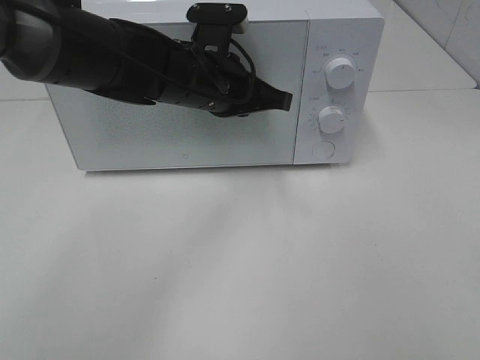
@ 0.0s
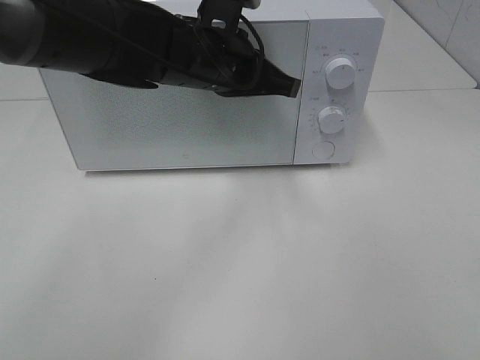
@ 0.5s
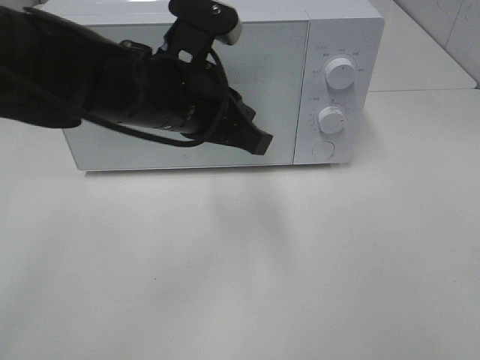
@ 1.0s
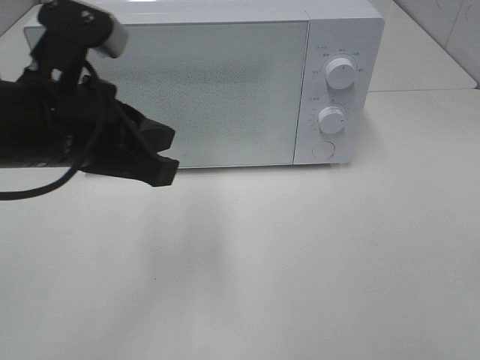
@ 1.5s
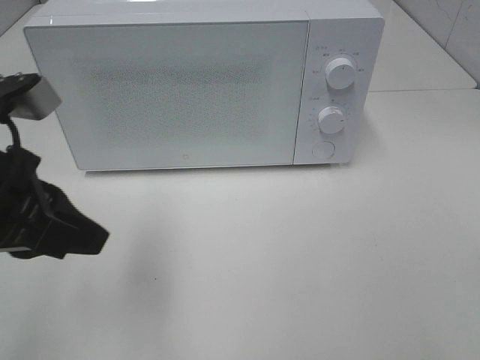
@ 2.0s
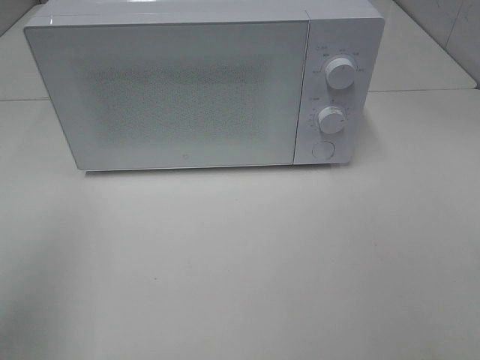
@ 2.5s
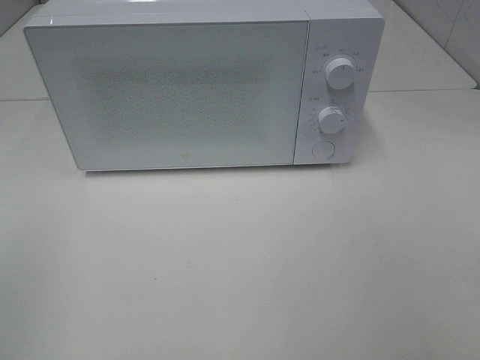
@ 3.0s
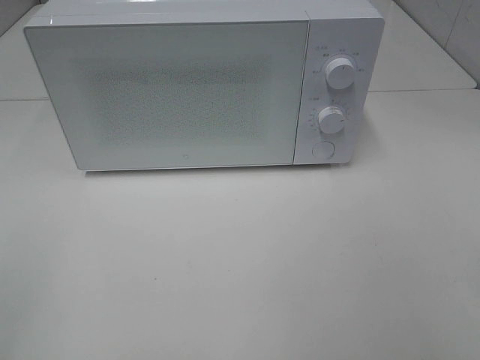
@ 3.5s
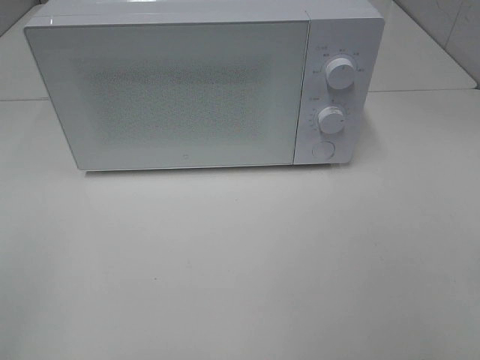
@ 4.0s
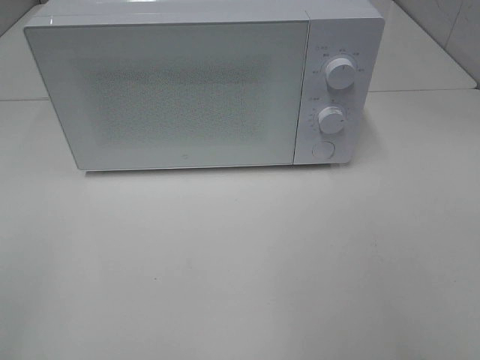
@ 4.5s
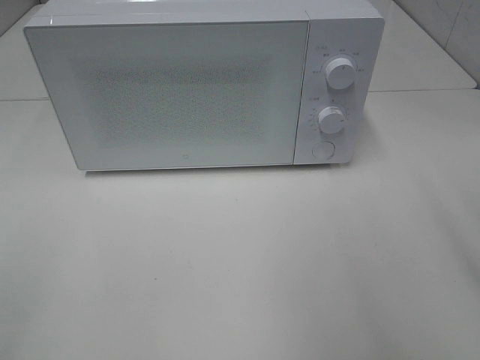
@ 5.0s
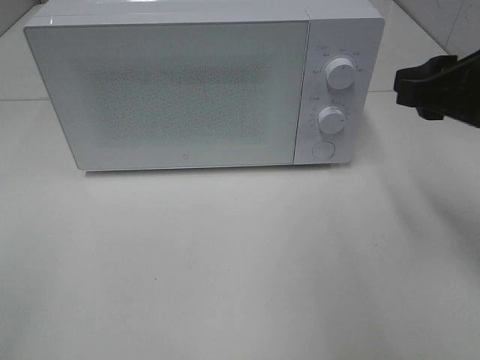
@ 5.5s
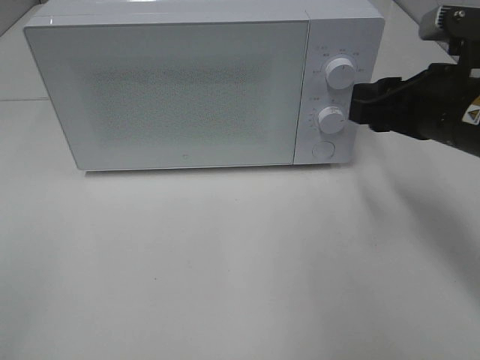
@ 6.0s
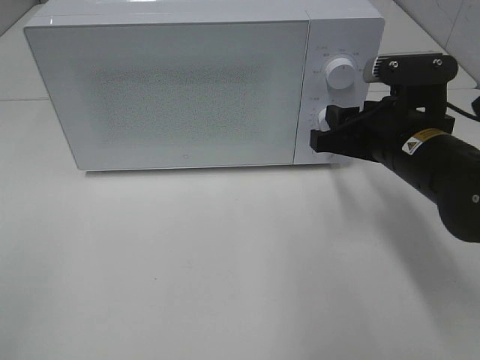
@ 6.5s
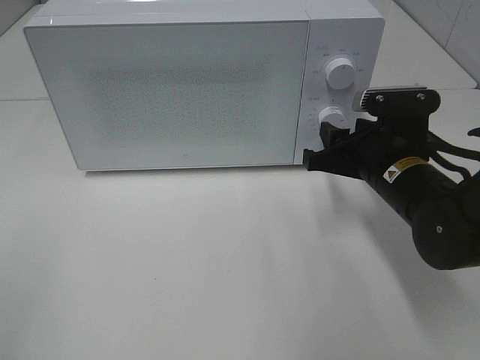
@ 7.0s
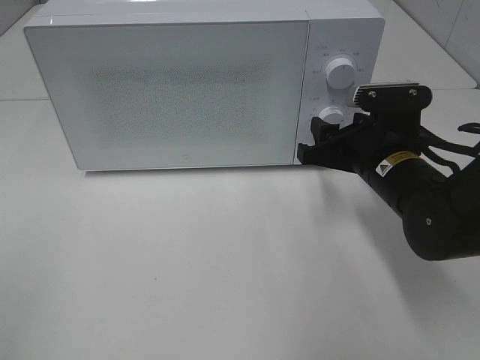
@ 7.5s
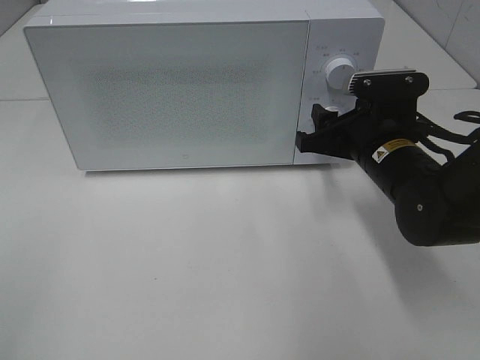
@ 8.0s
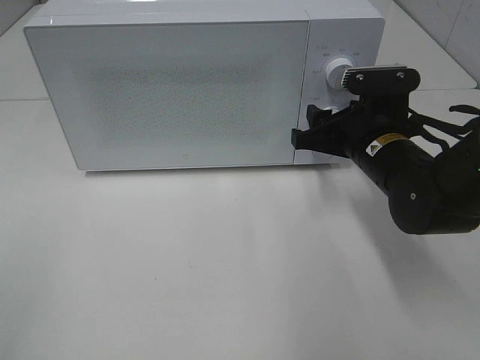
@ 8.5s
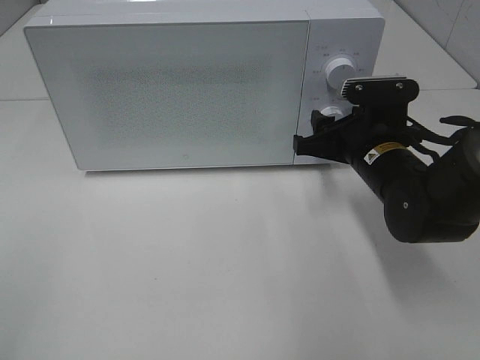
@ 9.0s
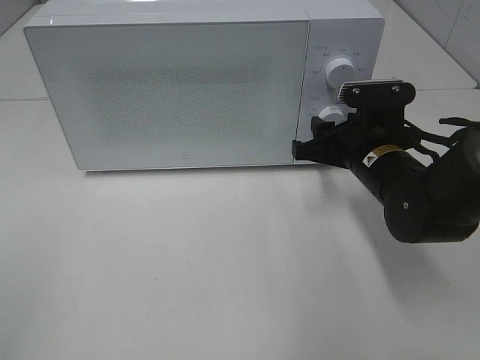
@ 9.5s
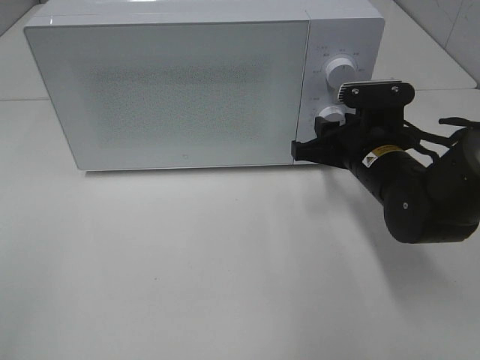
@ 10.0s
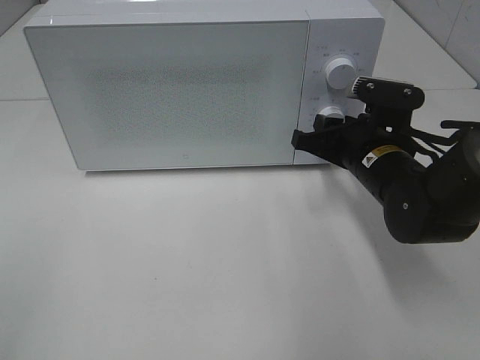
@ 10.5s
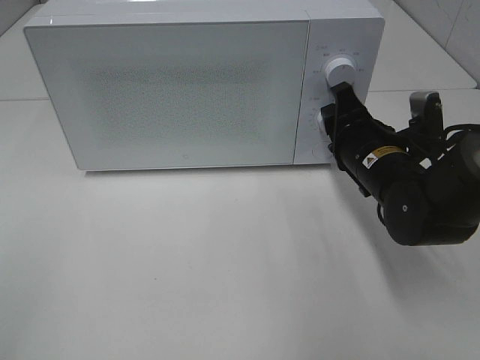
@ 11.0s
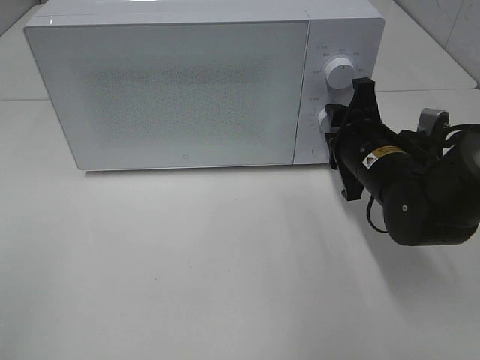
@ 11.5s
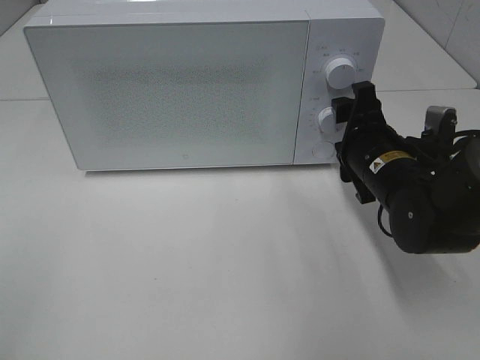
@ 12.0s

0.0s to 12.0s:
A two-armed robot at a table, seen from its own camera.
Task of the whole recording: Heat the burger.
Step, 0.5s to 11.5s: Right hand: twist timer button.
0.0s to 2.0s: The left gripper is displaced backward and to the left by approximately 25 cm.
2.0s to 4.0s: The left gripper heads backward and to the left, covering approximately 25 cm.
4.0s to 6.0s: The right gripper goes some 25 cm forward.
6.0s to 8.0s: The right gripper travels downward by about 10 cm.
8.0s to 10.0s: There are only small adjustments of the grippers.

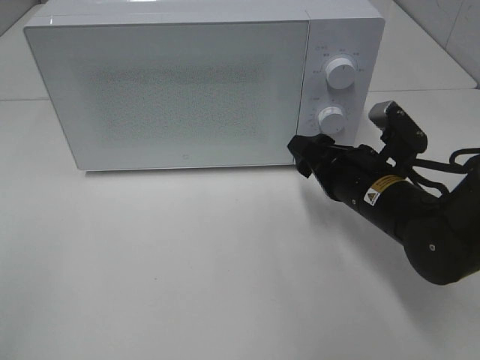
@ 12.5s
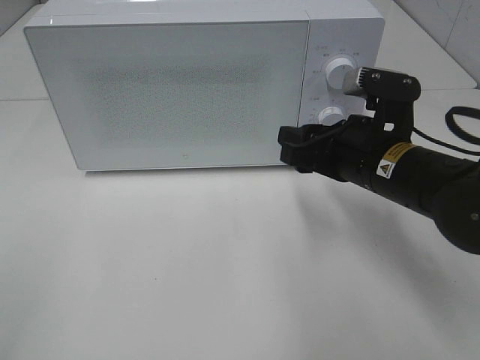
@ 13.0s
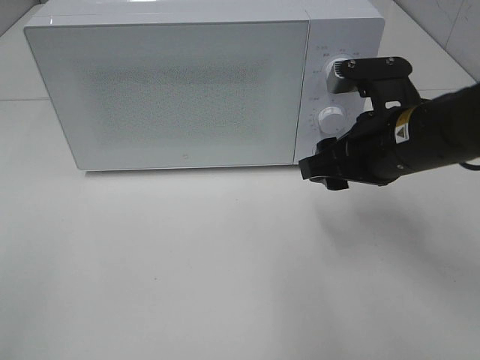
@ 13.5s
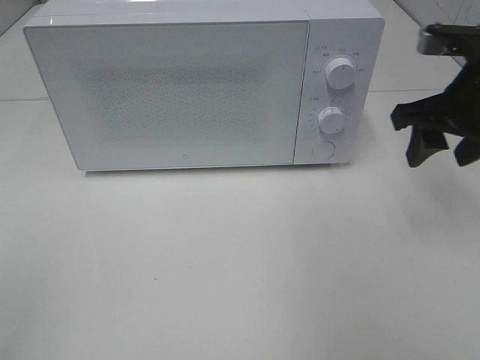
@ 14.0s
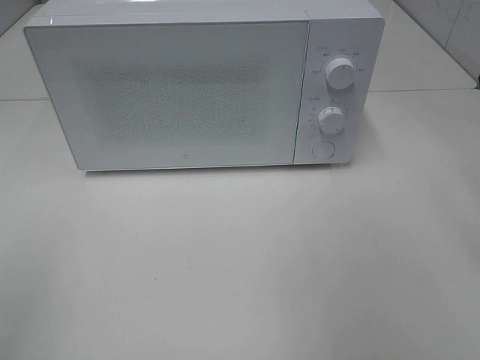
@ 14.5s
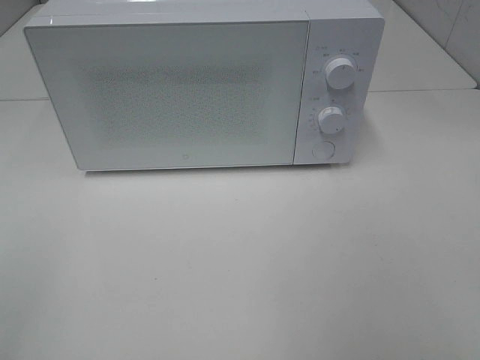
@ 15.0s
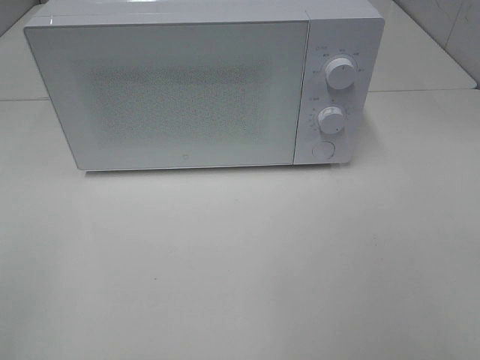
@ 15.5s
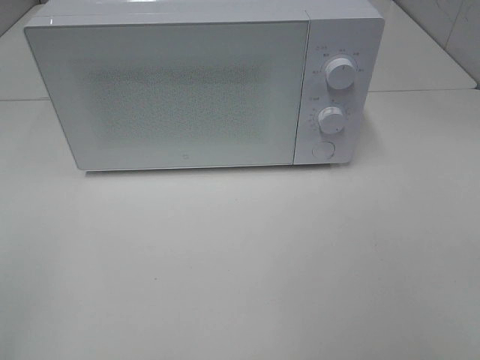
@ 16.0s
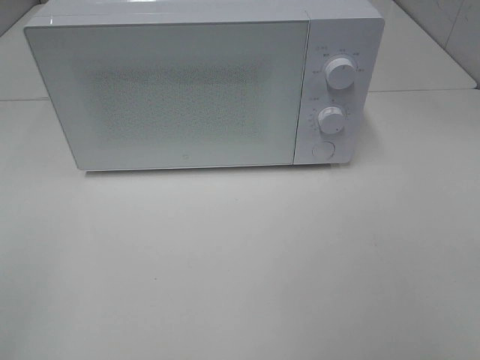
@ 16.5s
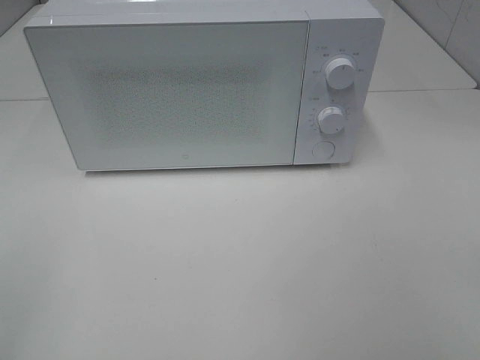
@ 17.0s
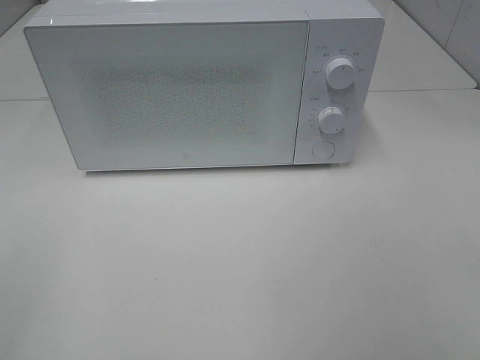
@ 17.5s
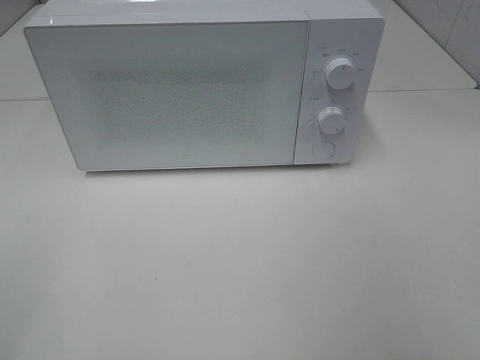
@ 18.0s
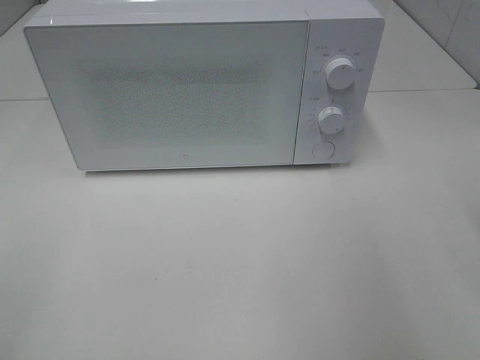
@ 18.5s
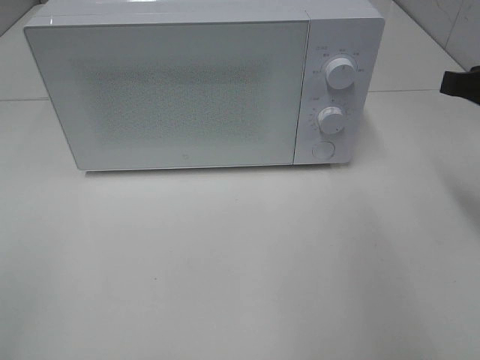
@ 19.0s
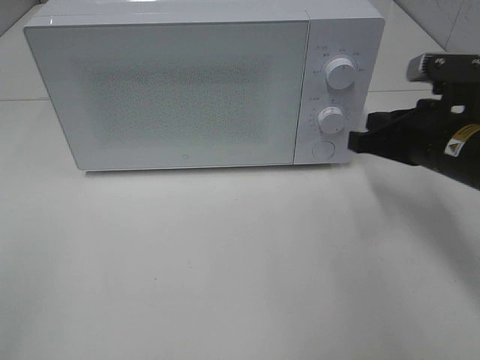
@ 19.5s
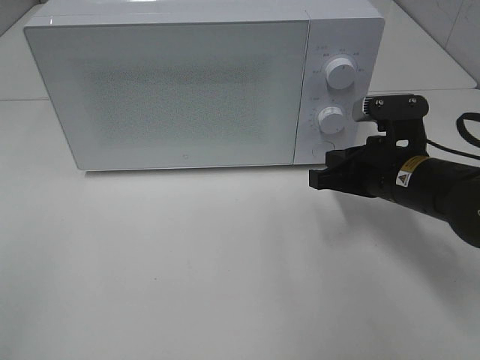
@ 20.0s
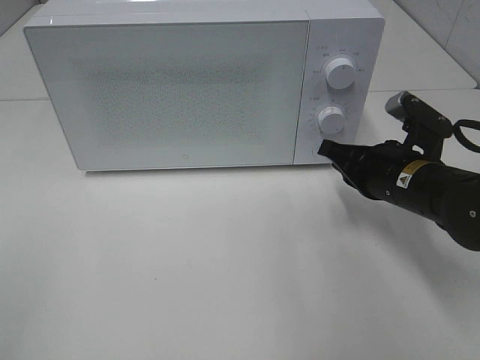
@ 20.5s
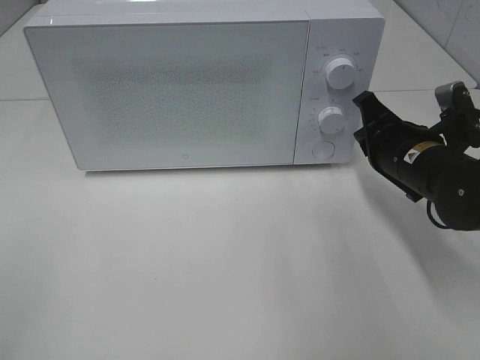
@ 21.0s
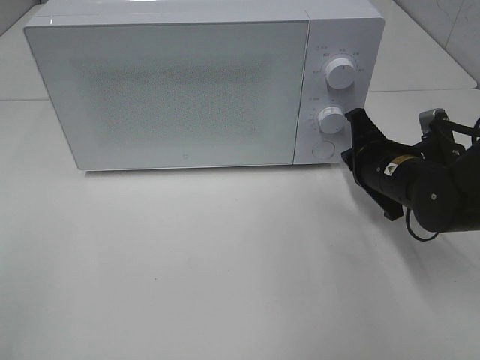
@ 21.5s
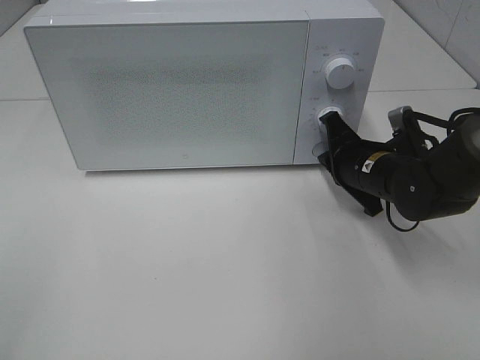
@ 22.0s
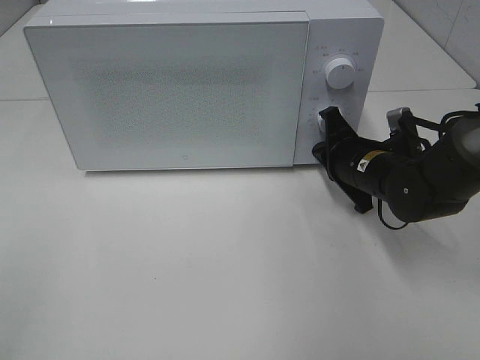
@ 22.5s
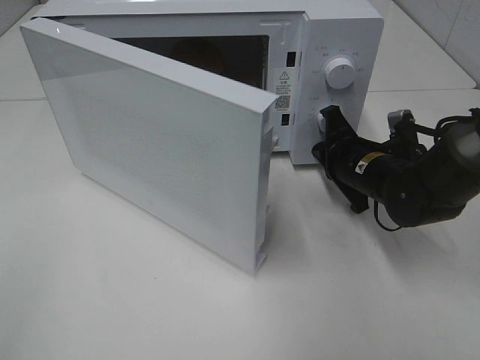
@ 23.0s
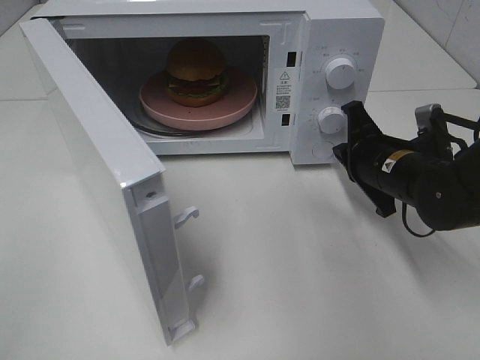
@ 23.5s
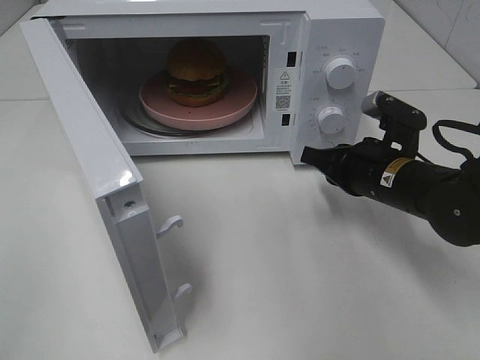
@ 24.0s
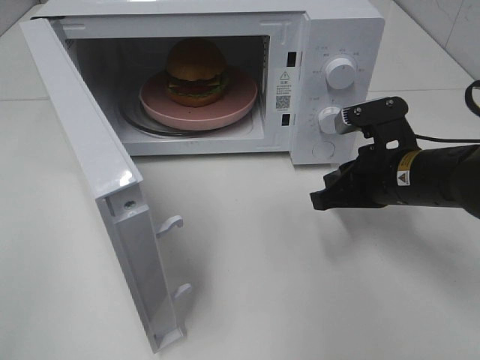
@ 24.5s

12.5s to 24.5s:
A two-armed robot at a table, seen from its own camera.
Task of the whole recording: Heat the burger.
Step, 12.5s to 23.0s: Right hand: press the switch.
12.5s to 14.5s: The right gripper heads upward and to the right, covering some 25 cm.
18.5s to 20.5s: The right gripper moves downward, forward and to the left, approximately 20 cm.
20.5s to 22.5s: The right gripper moves forward, approximately 5 cm.
22.5s to 24.5s: The right gripper heads backward, covering approximately 5 cm.

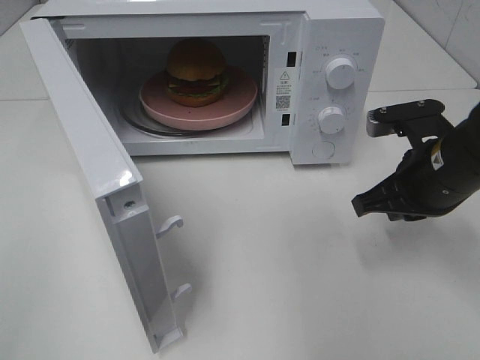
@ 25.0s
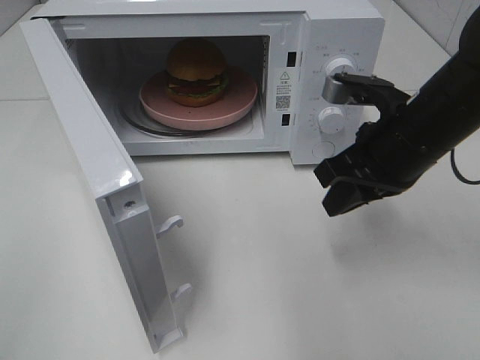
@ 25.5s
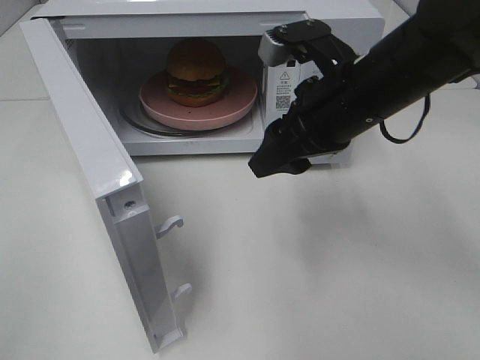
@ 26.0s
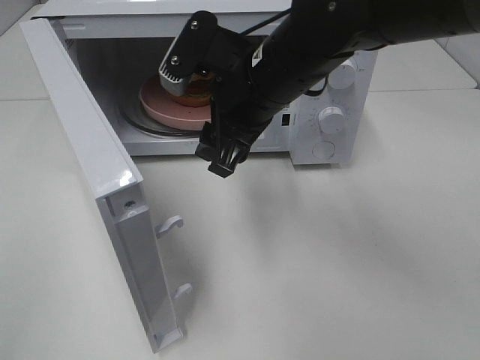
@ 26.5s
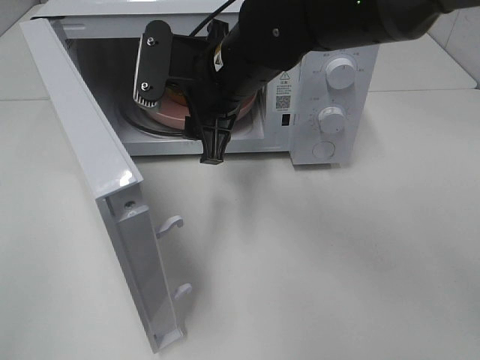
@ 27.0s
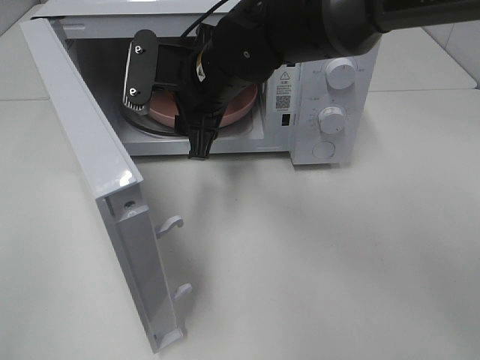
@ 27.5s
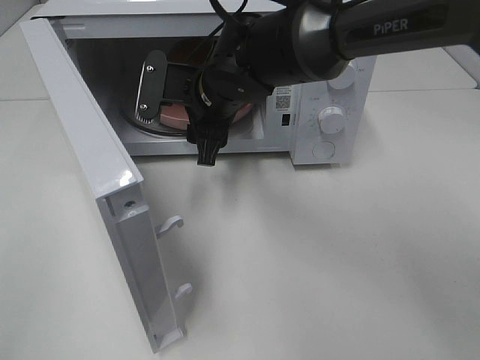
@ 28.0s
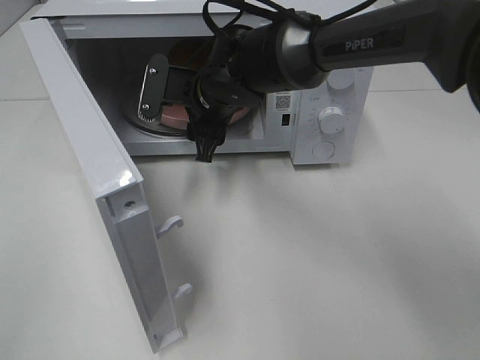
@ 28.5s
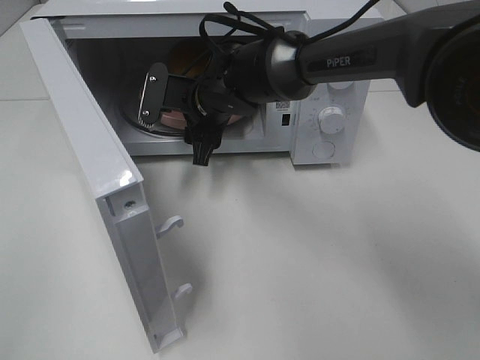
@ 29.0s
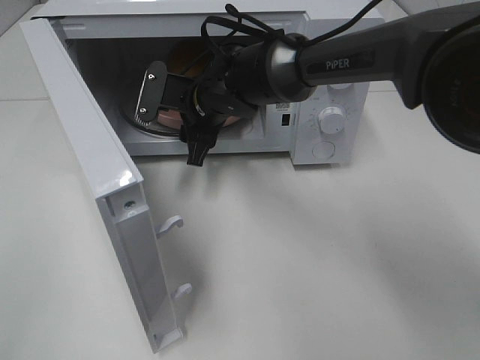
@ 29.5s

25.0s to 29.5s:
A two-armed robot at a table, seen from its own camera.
Task of the whole recording: Heat the burger.
25.0s to 27.0s: The right gripper goes about 20 cm to the left, and opens up.
27.0s to 29.5s: The right gripper goes approximately 10 cm downward and forward.
